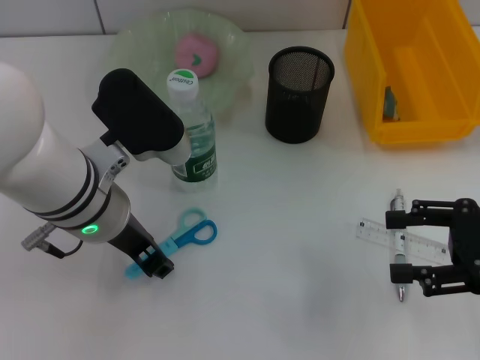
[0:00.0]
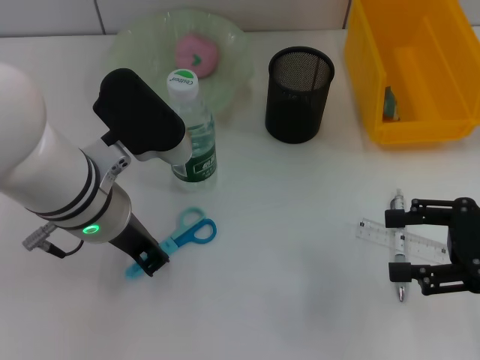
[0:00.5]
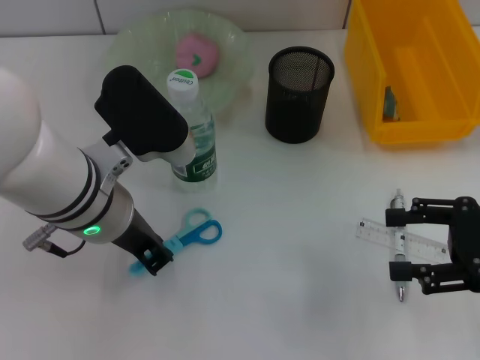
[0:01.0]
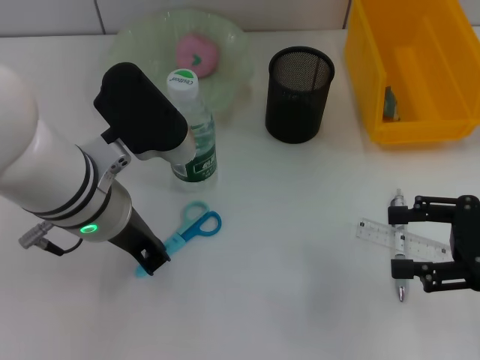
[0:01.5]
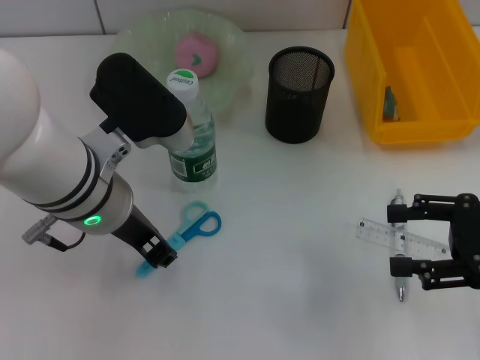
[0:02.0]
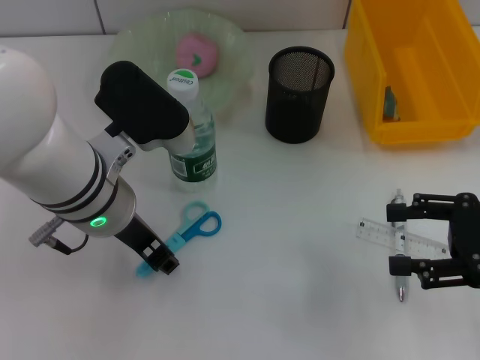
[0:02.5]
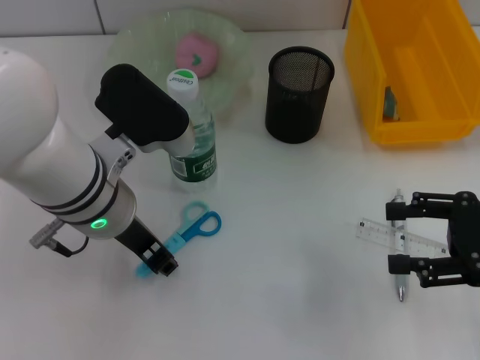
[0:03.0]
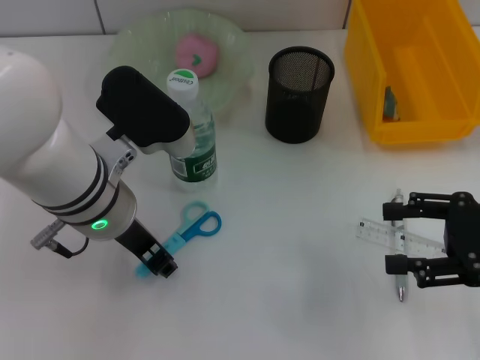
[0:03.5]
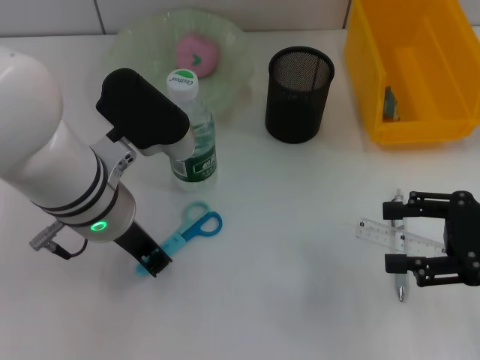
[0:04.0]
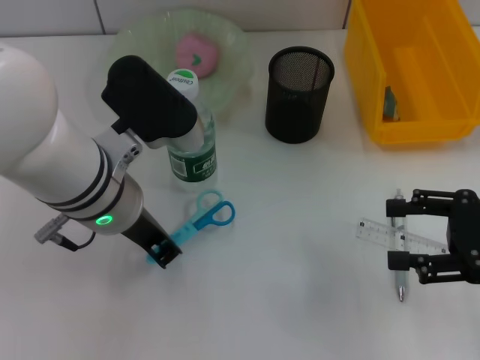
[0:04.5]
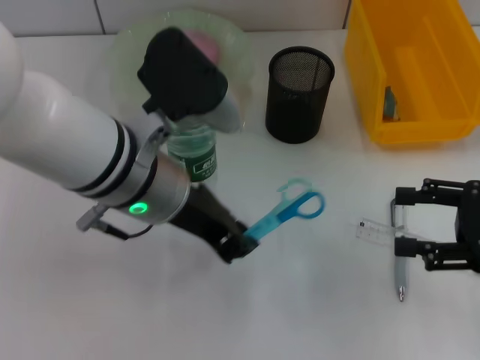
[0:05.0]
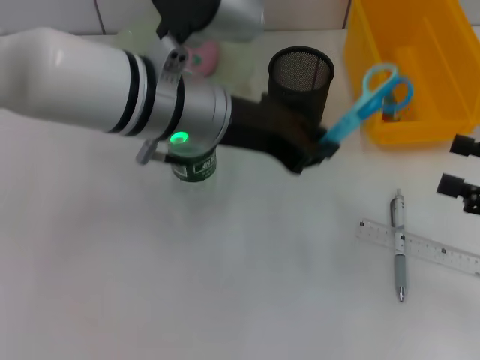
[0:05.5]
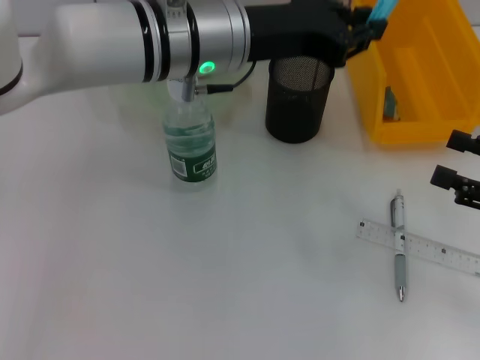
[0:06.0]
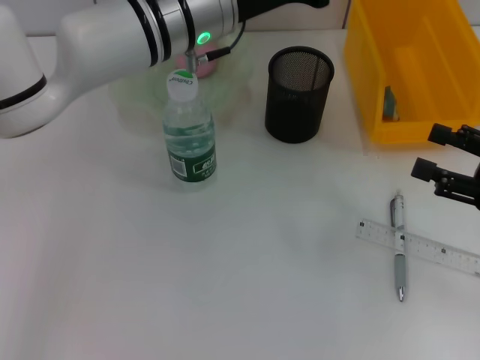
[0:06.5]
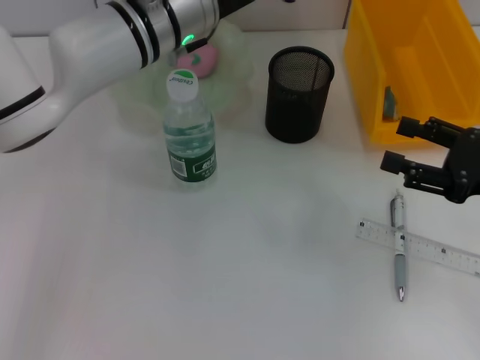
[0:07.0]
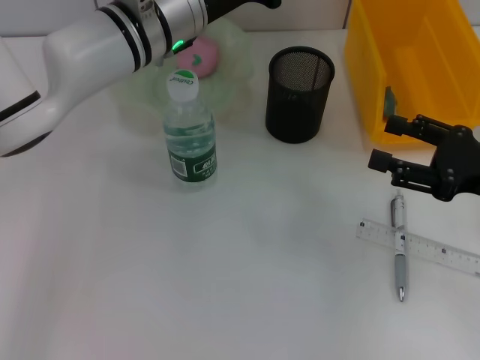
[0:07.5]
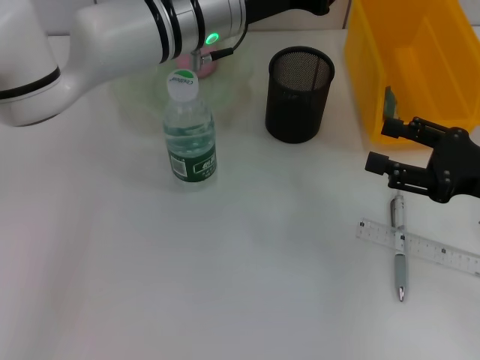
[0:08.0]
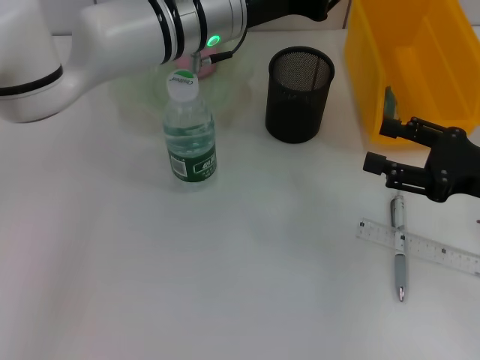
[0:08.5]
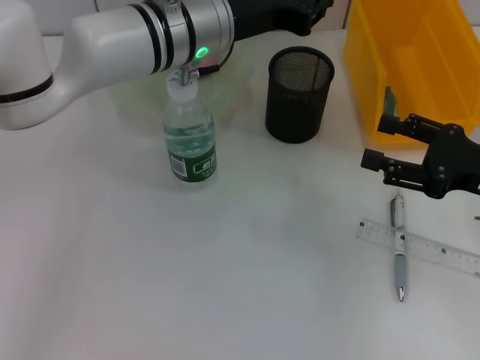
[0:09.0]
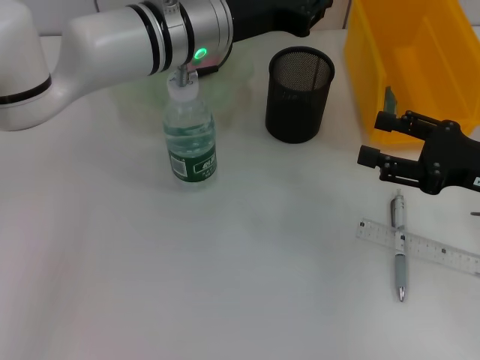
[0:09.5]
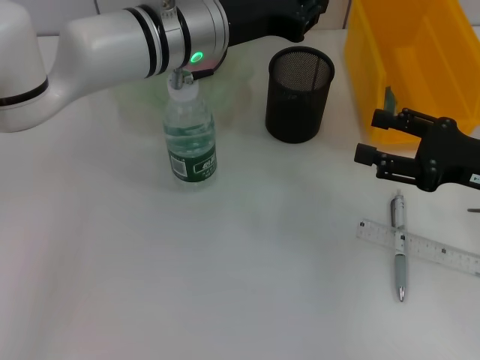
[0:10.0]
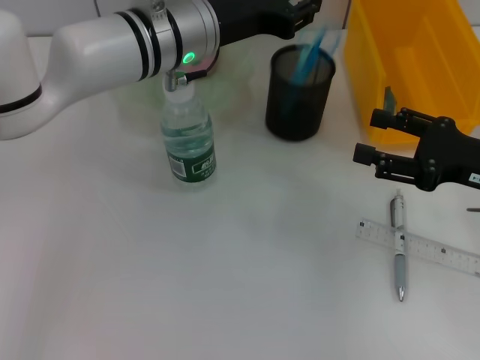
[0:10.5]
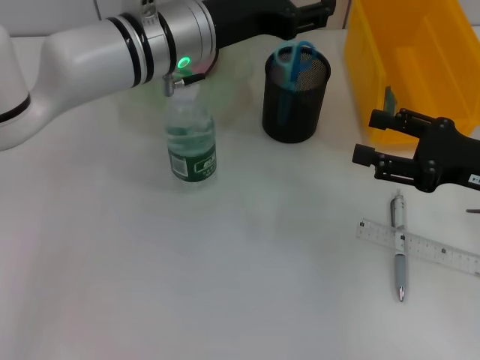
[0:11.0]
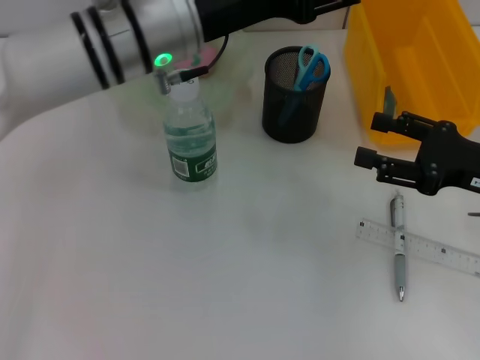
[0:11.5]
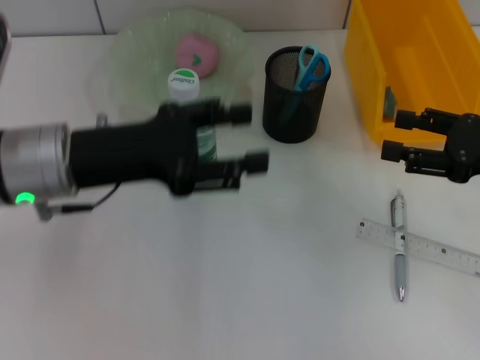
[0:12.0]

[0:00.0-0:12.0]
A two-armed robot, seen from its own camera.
Step, 0:00.0 to 0:04.0: Grab the blue scissors with the left hand.
Step, 0:04.5 to 0:10.5: Place the blue scissors into the pen holder with the left hand.
0:00.0 to 0:02.0: The left gripper closes.
0:02.0 to 0:04.0: The grippers move only a little.
0:04.0 to 0:06.0: The left gripper travels forward, to the right and upward by roughly 10 cm.
0:06.0 to 0:08.0: The right gripper changes place by about 5 cm.
0:08.0 to 0:10.0: The grippers stay close to where they were, moving slightly.
0:10.0 to 0:12.0: The left gripper moves to the left and backward, about 20 cm, and opens up.

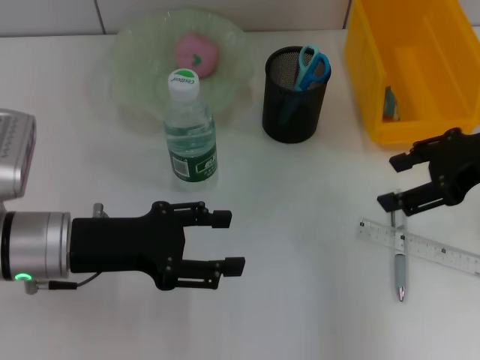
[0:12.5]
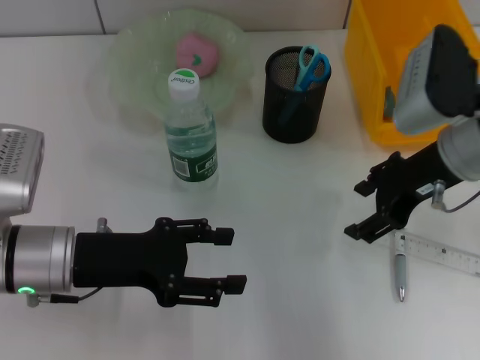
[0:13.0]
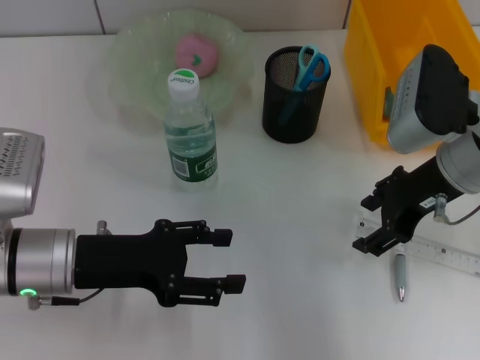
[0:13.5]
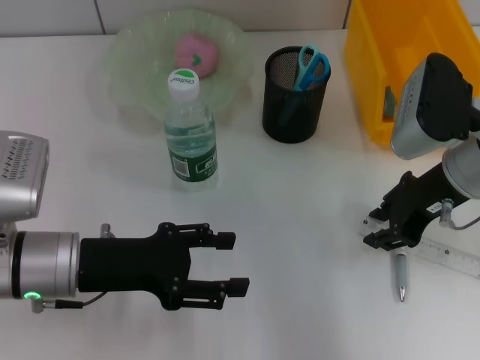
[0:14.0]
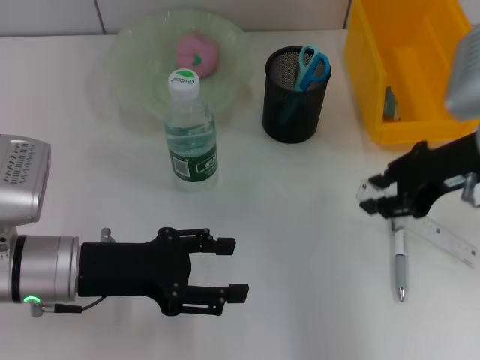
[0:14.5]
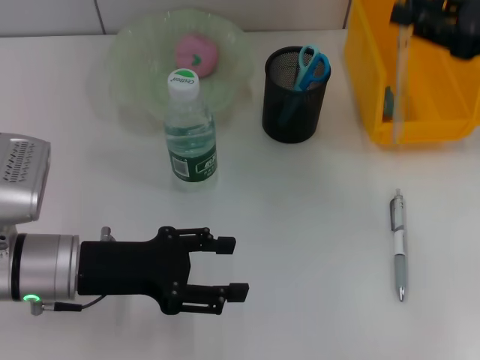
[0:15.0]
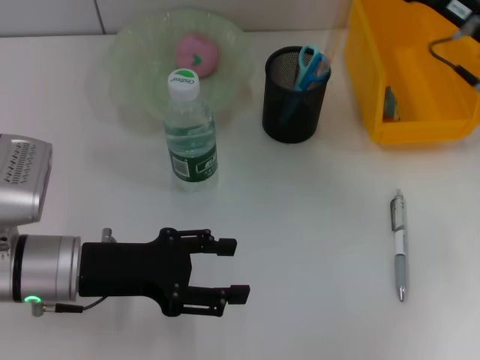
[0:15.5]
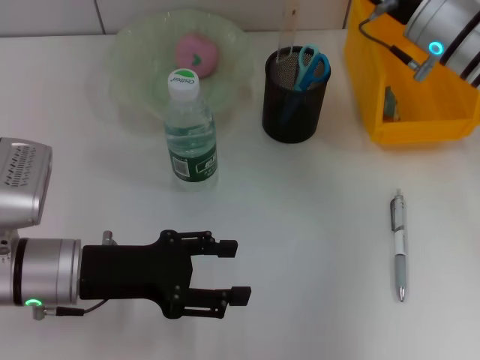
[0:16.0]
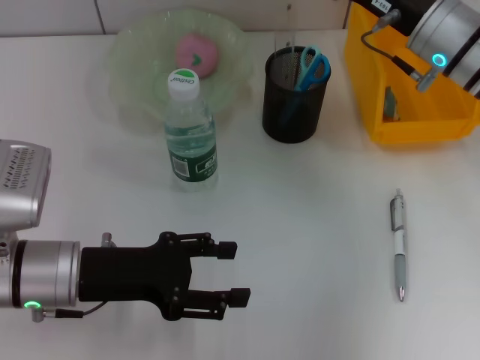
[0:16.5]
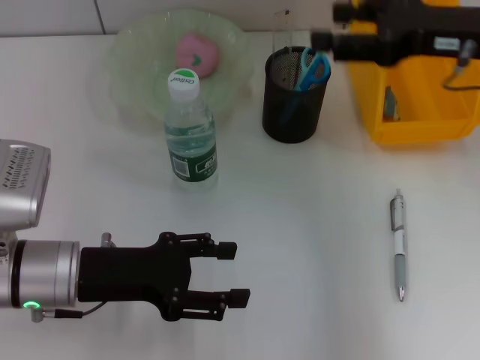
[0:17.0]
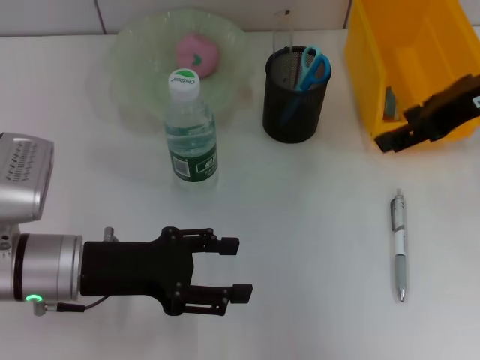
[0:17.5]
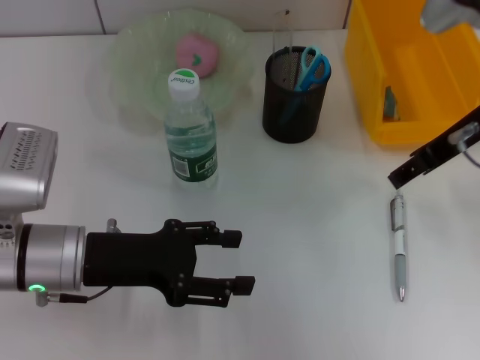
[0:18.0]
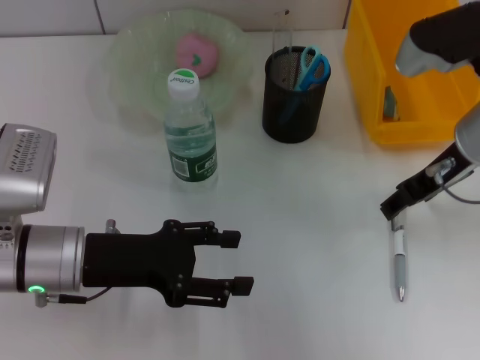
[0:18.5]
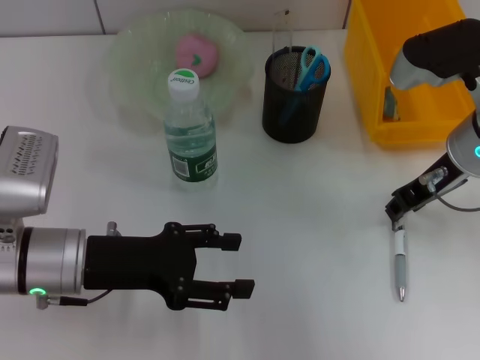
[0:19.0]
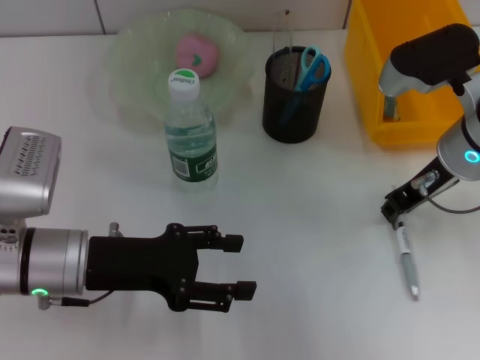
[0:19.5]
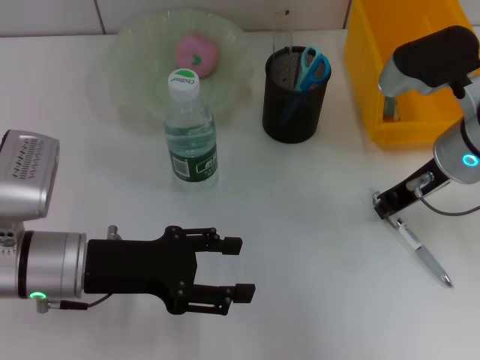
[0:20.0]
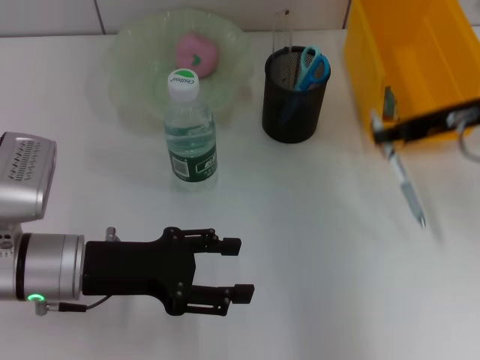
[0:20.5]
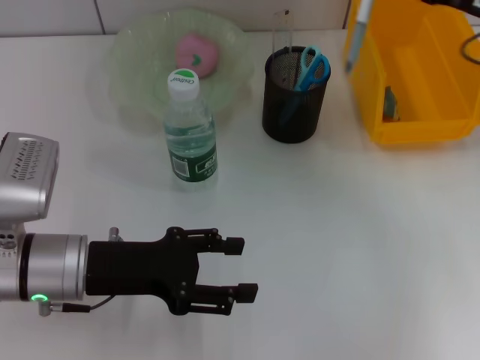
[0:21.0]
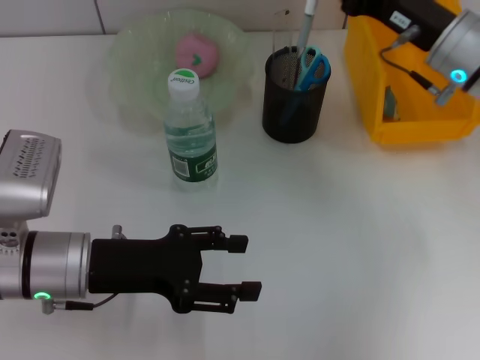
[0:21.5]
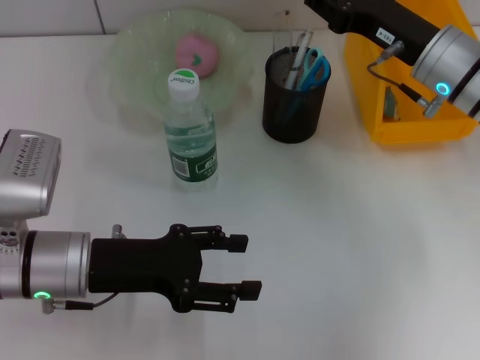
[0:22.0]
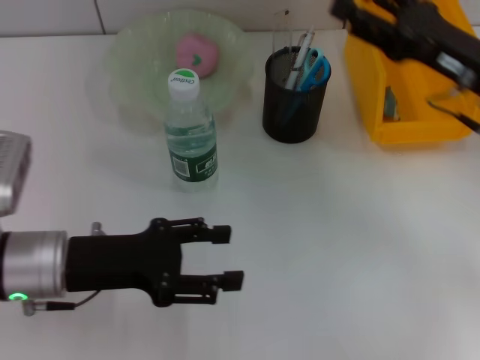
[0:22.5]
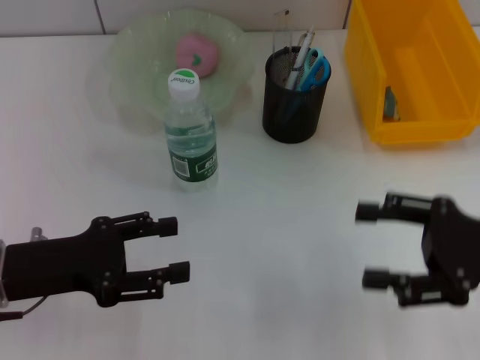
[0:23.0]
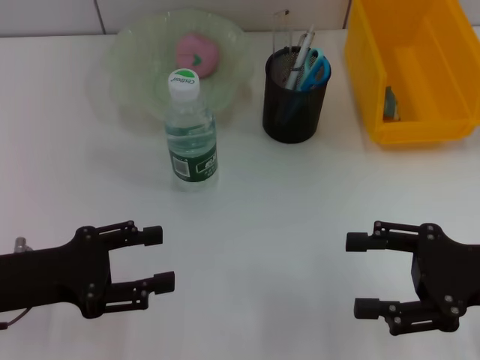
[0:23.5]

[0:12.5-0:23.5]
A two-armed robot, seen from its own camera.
Step, 0:14.5 to 0:16.5: Place the ruler into the pen holder with the right hand.
Step, 0:17.0 to 0:19.5: Grab the gray spring-action pen with the right hand.
Step, 0:20.0 to 0:22.0: Place the gray spring-action pen into the pen holder with the right hand.
0:12.5 to 0:14.5: The right gripper closes.
0:14.5 to 0:16.0: The right gripper shifts approximately 10 cm forward.
0:16.0 to 0:18.0: The right gripper shifts approximately 10 cm backward and upward.
0:18.0 to 0:20.0: The right gripper goes about 5 cm downward, and closes up.
0:21.5 to 0:23.5: The left gripper shifts approximately 10 cm to the left, while the right gripper moves backward and to the right, roughly 20 cm, and opens its fingers.
